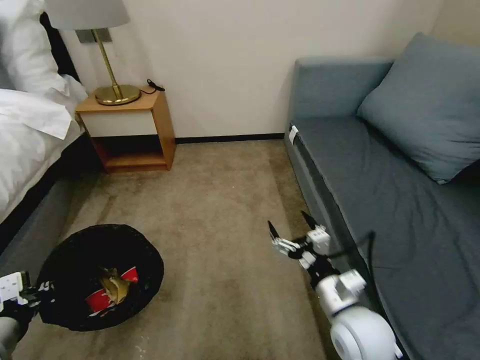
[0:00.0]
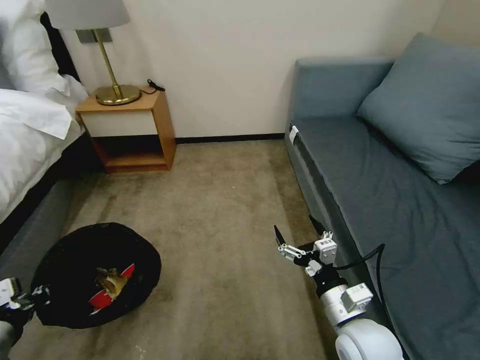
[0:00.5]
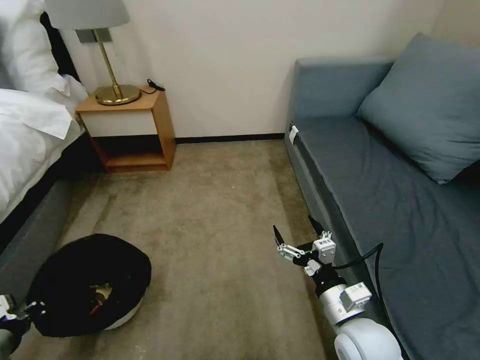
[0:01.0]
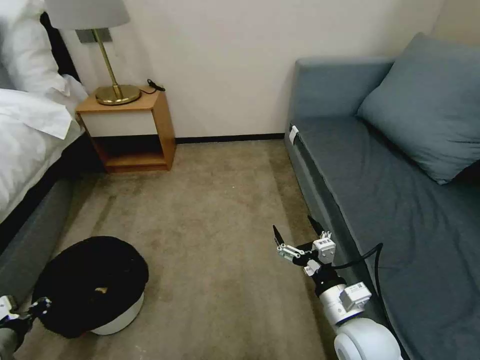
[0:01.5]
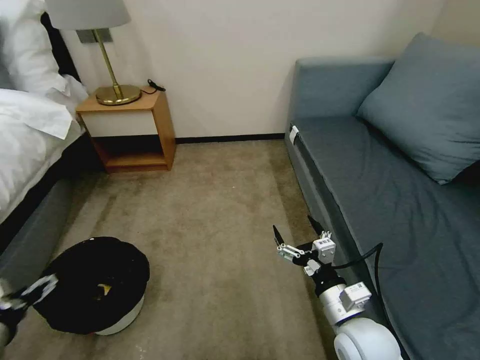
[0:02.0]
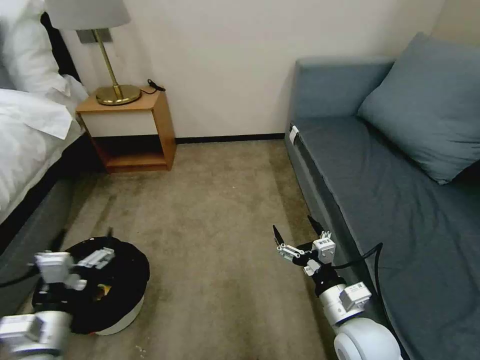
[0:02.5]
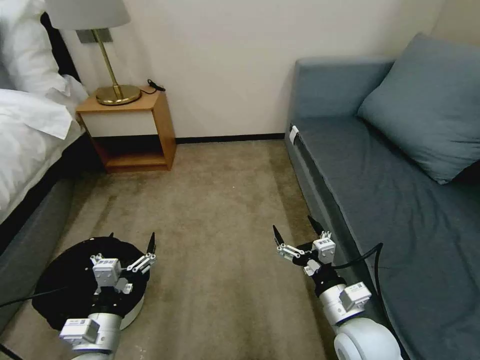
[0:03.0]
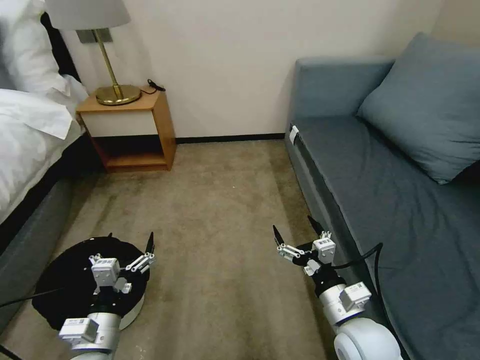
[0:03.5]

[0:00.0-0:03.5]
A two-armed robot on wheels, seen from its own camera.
Task of the whole recording: Pick up the trash bin, then pick up the garbage on the floor and place it into the trash bin.
0:00.0 to 0:02.0: The left gripper goes downward and returns, roughly 10 cm each way, and opens up.
0:02.0 to 0:03.5: The left gripper is displaced to the right by approximately 20 cm.

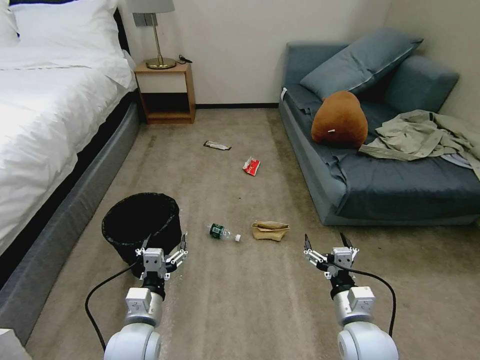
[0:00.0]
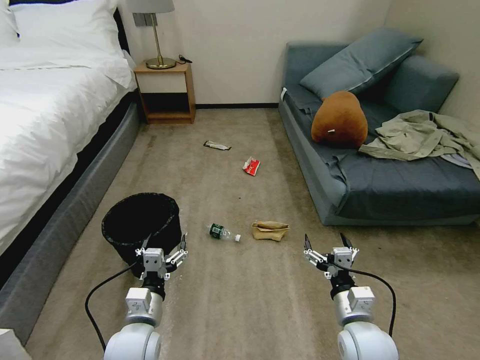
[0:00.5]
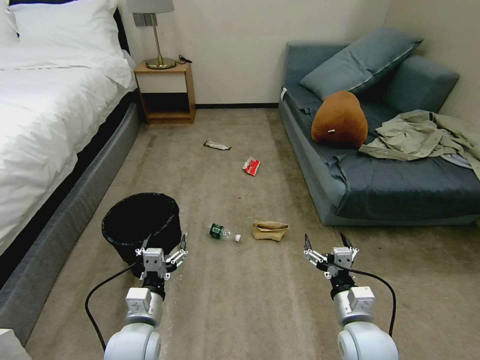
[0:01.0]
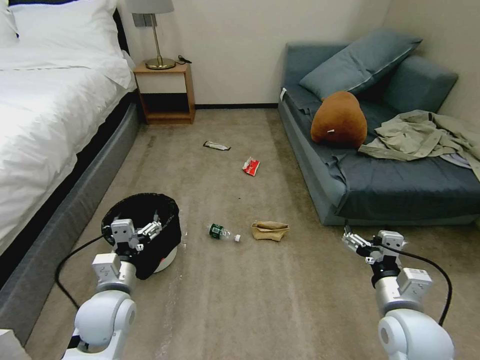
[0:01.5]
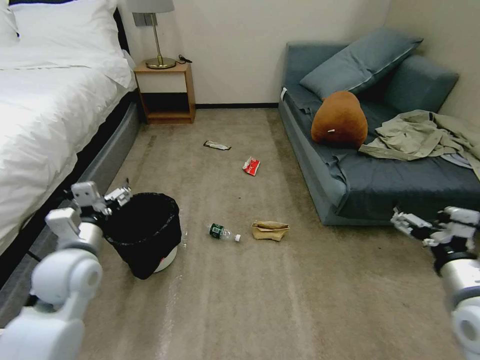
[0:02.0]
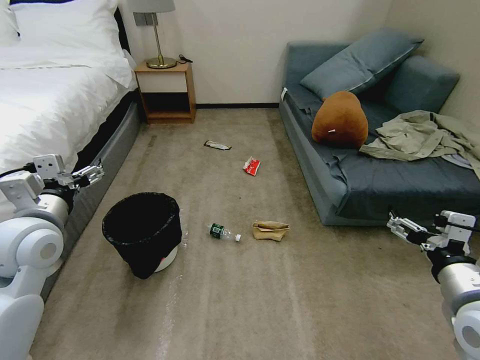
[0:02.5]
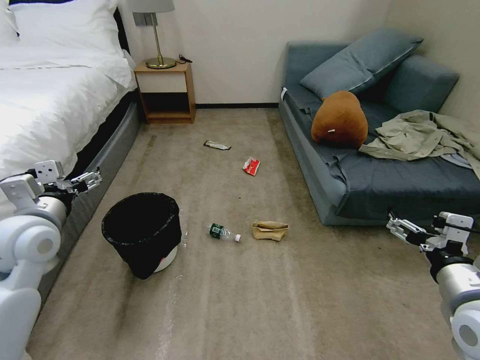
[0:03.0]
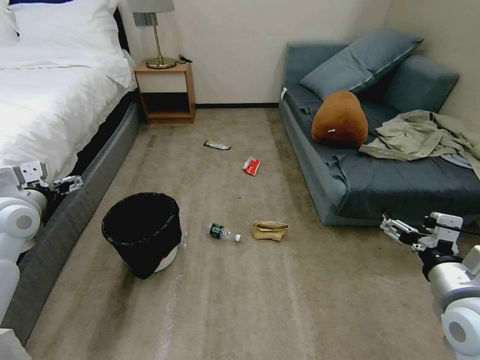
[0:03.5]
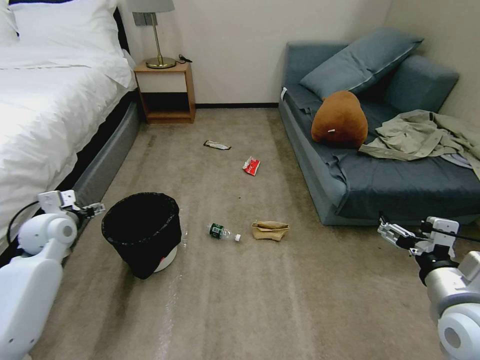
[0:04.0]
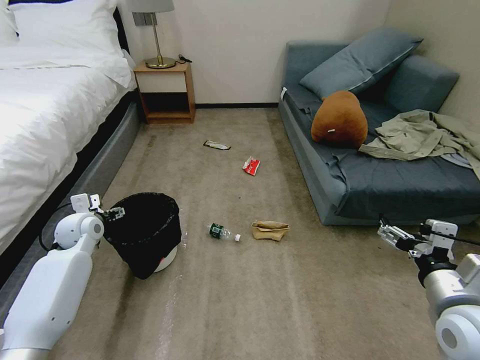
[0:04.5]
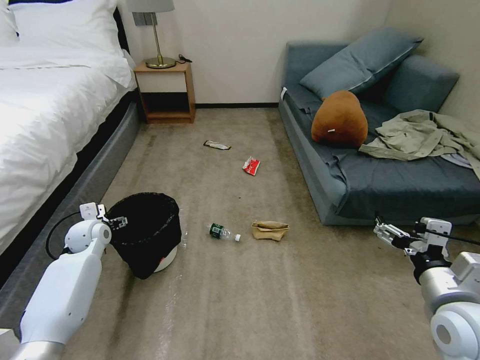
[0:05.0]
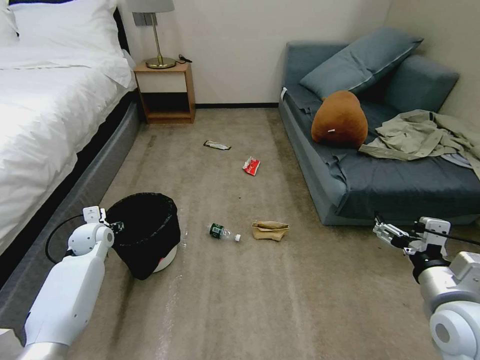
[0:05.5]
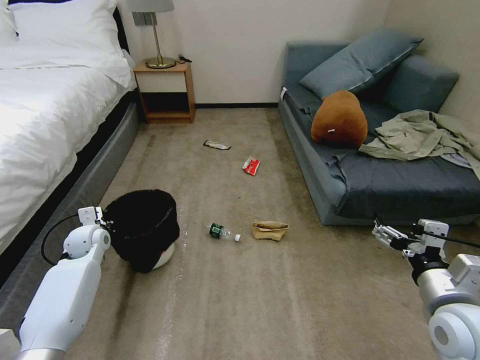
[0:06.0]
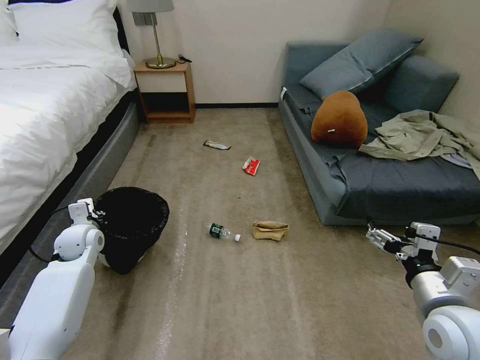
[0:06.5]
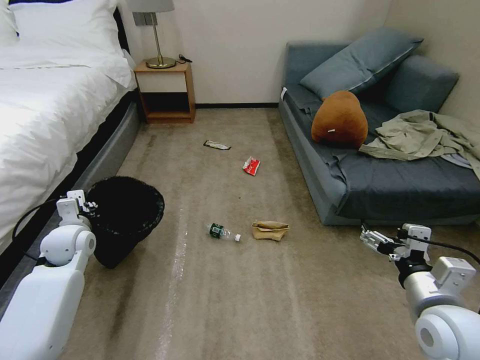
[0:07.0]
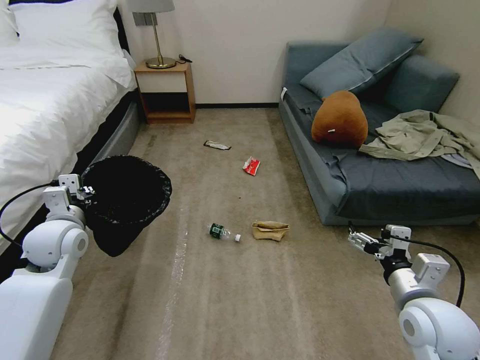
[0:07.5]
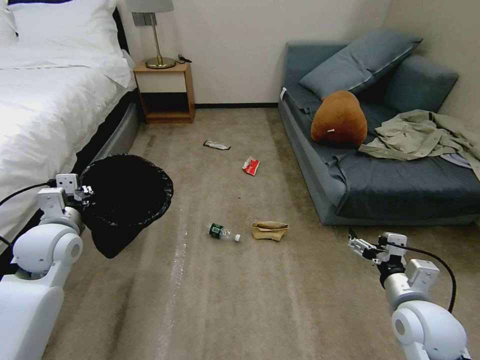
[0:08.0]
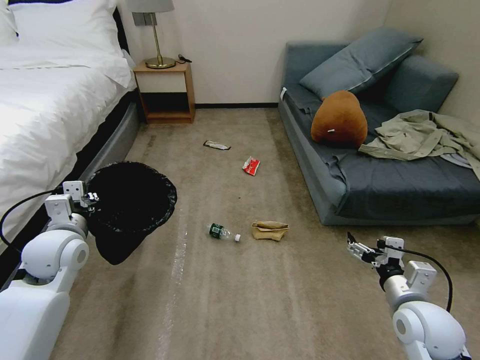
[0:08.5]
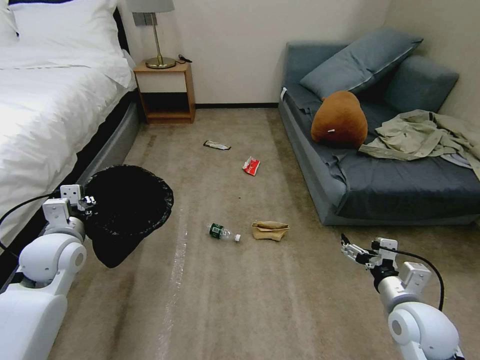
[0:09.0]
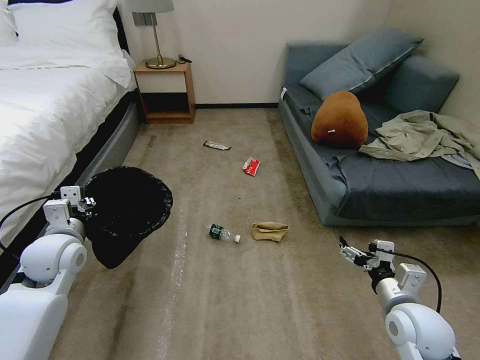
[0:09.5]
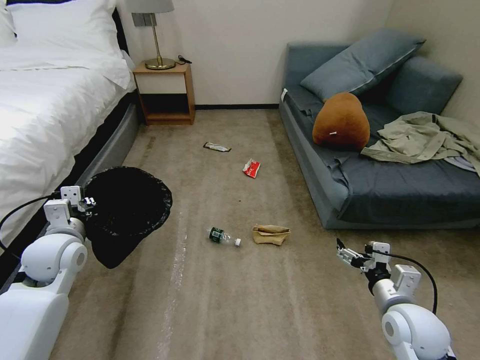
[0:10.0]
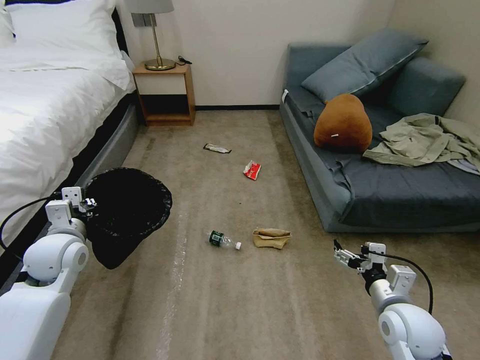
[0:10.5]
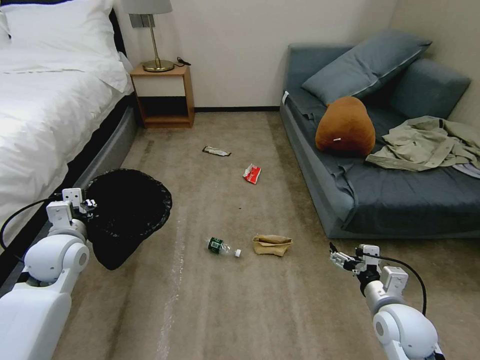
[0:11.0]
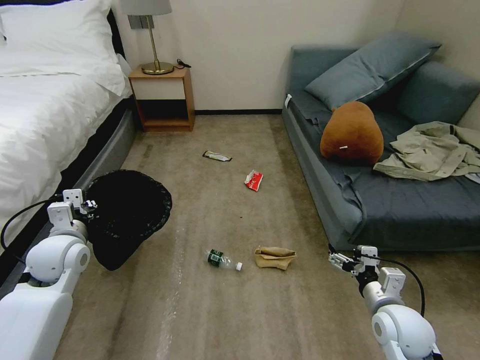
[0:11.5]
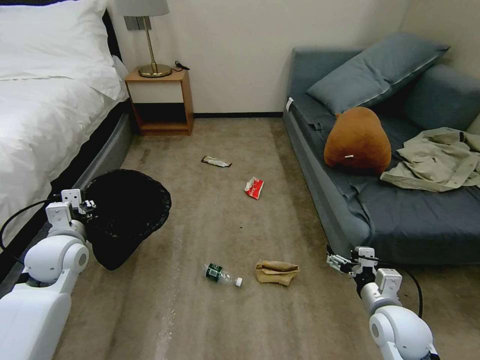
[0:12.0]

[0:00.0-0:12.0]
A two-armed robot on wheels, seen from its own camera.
Task of the whole recording: Pick up the trash bin, then pick up the garbage on the floor and place it into the trash bin.
0:02.0 to 0:04.0: The left gripper shifts roughly 15 cm to the left and forward.
0:04.0 to 0:06.0: The left gripper goes some 10 cm downward, and closes.
0:06.0 to 0:08.0: The left gripper moves upward and backward, about 15 cm. The right gripper shifts roughly 5 cm downward.
0:08.0 to 0:10.0: The grippers stay close to where they were, moving slightly.

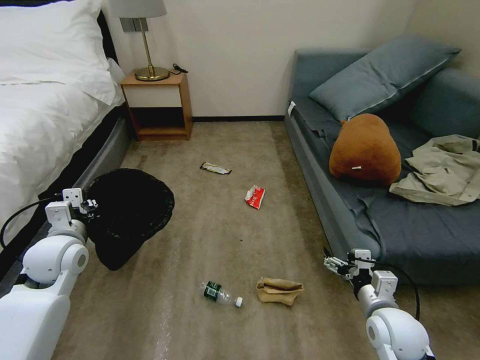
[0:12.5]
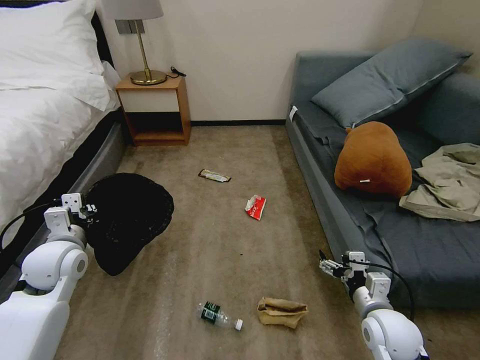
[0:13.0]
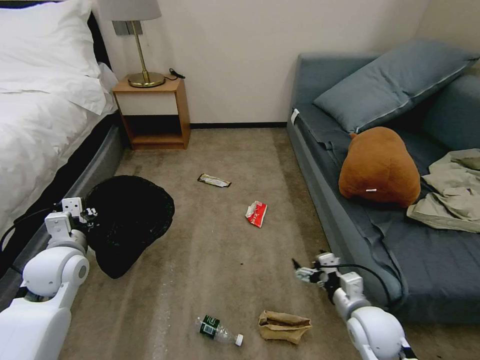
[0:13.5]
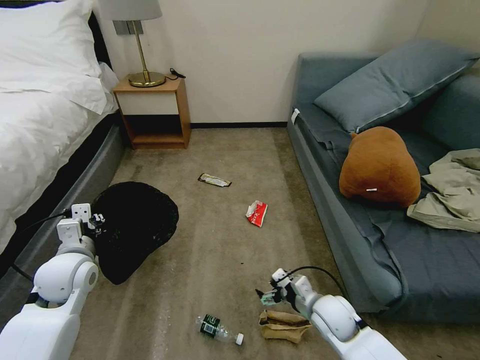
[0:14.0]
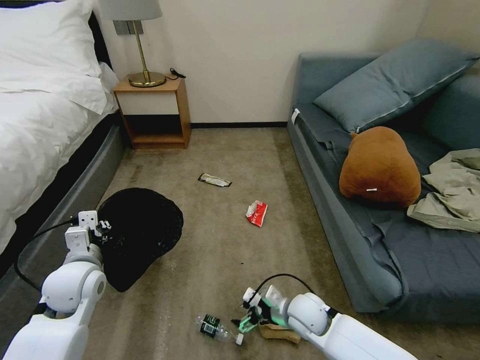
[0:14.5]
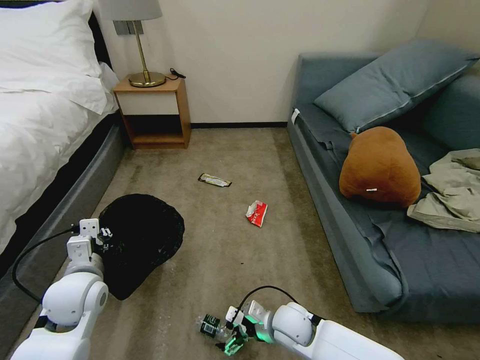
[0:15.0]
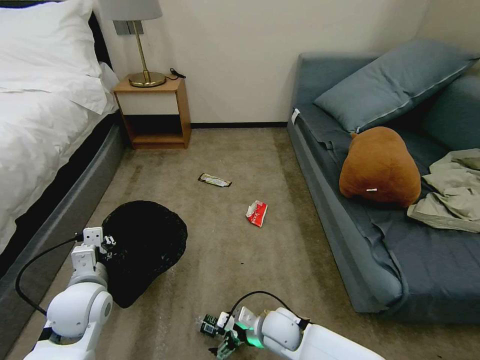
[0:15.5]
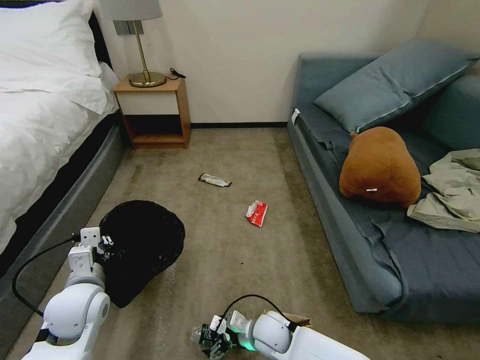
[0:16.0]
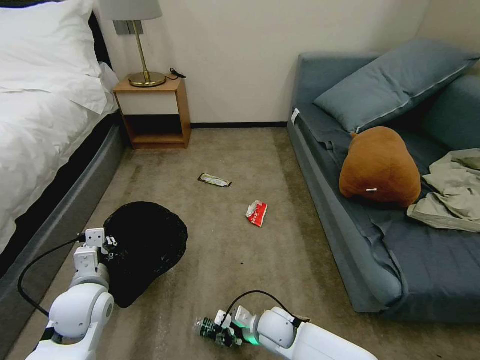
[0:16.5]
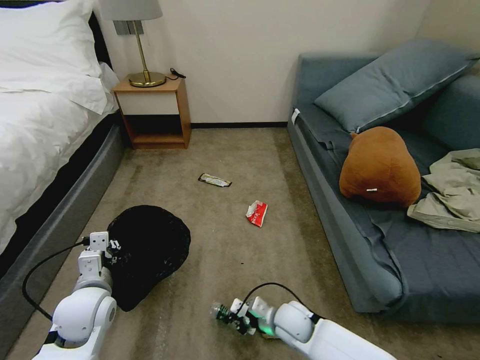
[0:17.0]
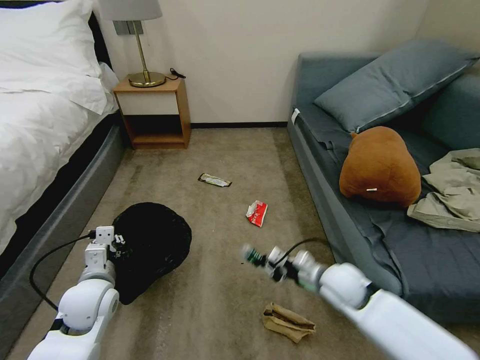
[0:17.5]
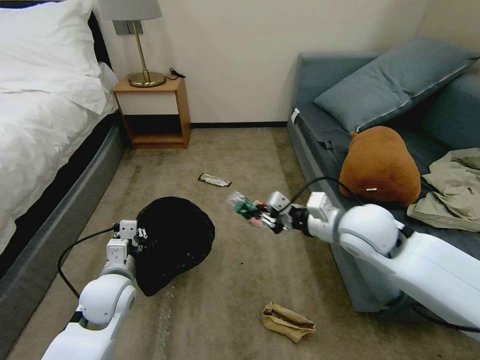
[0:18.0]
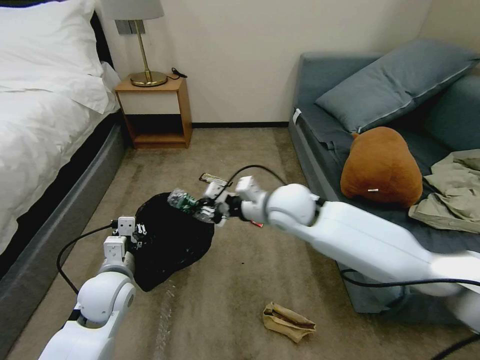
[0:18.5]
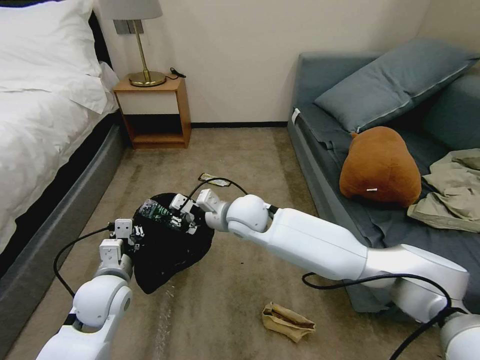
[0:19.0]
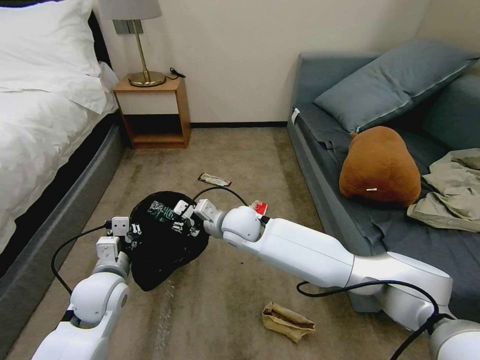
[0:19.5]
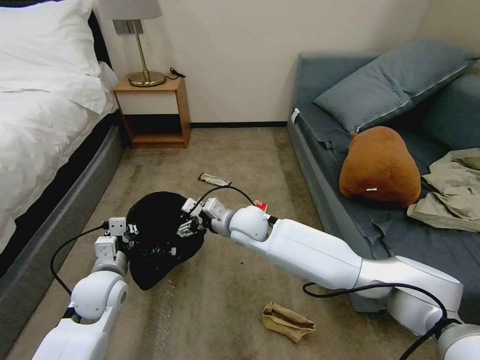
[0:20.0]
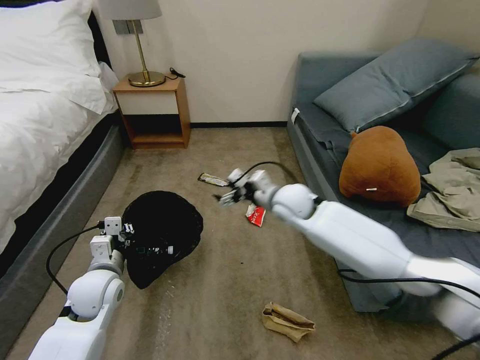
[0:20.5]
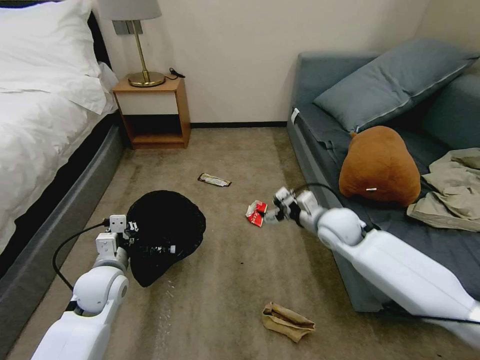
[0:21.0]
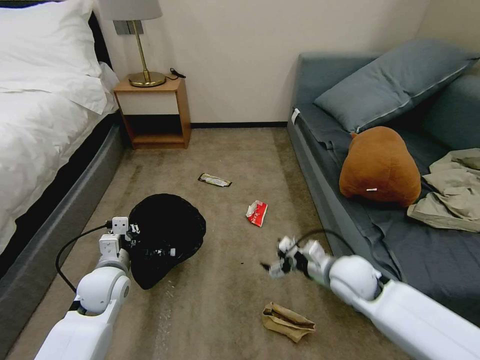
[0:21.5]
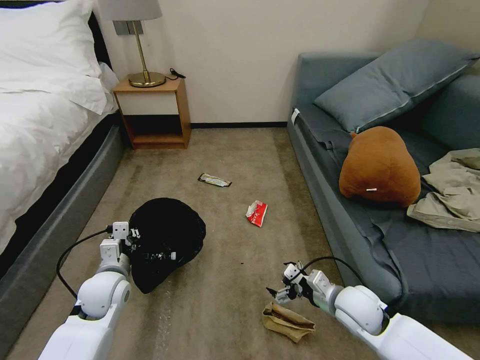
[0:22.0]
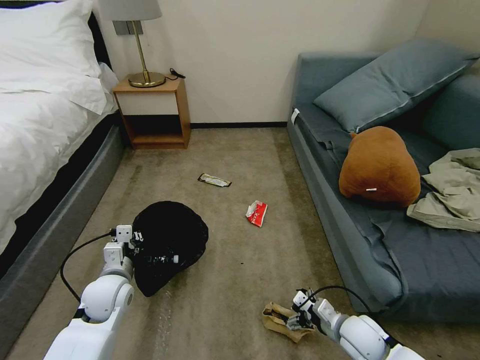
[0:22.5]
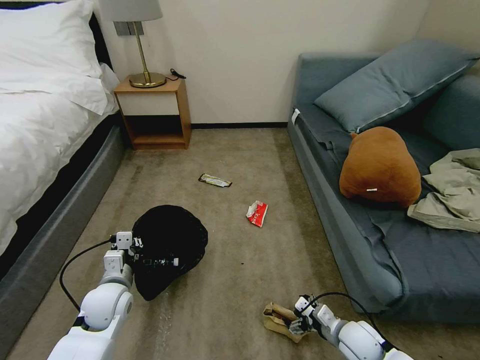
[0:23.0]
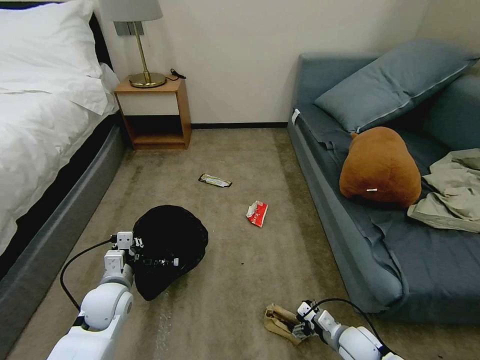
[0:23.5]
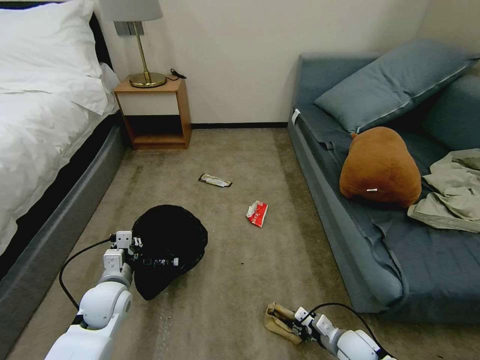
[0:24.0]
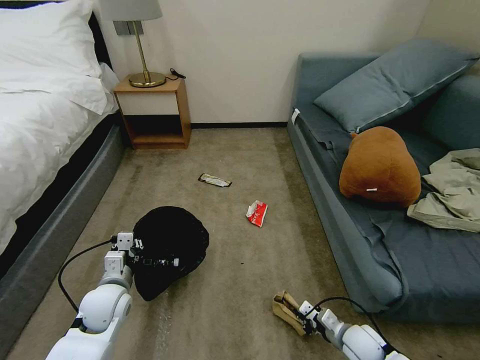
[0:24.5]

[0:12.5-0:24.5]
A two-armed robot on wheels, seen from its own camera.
Task of the whole recording: Pick up the trash bin, then pick up the garbage on the floor and place it into the trash bin.
0:12.5 to 0:14.5: The left gripper changes place by some 5 cm. The right gripper travels to the left, downward and forward by roughly 20 cm.
0:14.5 to 0:16.5: The left gripper ends up about 5 cm from where it was, while the right gripper travels to the left and downward by approximately 10 cm, and closes up.
0:16.5 to 0:18.5: The right gripper moves upward and forward, approximately 35 cm.
0:18.5 to 0:20.5: The right gripper is displaced forward and downward by about 10 cm, goes to the left and returns, some 10 cm each way, and opens its fingers.
0:20.5 to 0:22.5: The right gripper goes about 35 cm backward, downward and to the right.
0:22.5 to 0:24.5: The right gripper heads downward, covering about 5 cm, and closes.
